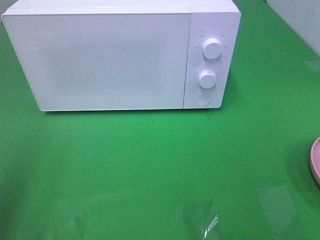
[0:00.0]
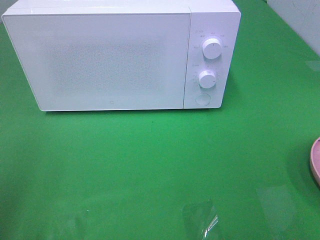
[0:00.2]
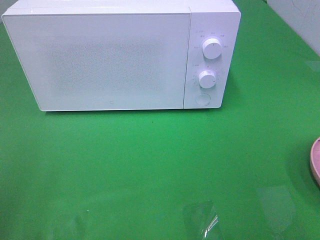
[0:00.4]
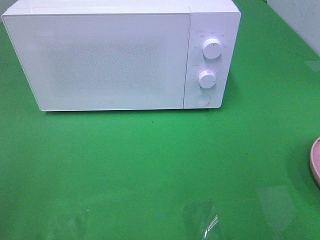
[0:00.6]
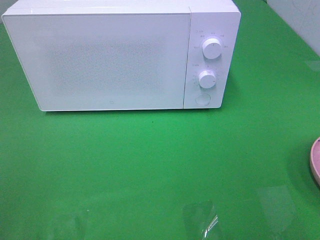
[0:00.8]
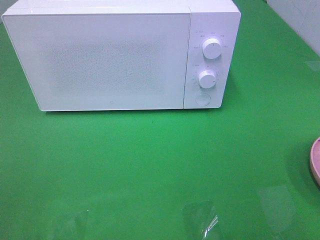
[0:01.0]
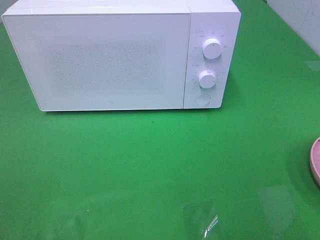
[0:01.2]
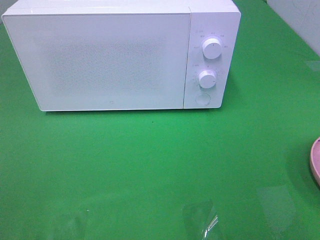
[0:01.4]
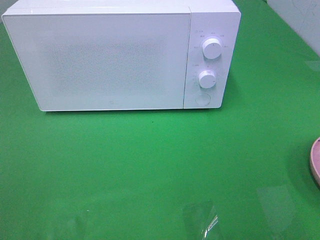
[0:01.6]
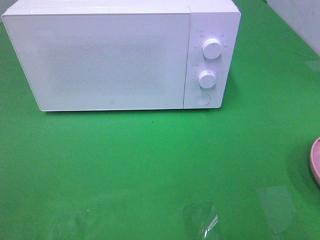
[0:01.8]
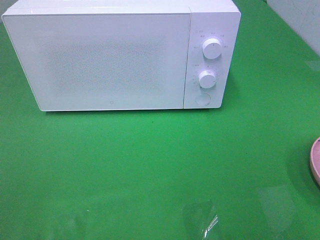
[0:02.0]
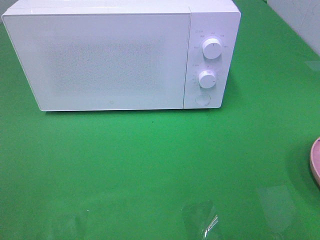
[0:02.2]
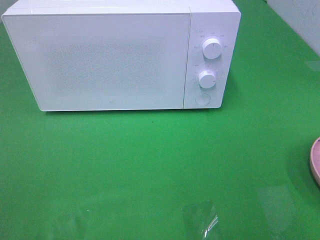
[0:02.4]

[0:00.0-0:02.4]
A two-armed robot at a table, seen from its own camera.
Task of the whole recording: Heat the burger.
0:01.2 to 0:02.4: The two grippers keep their place.

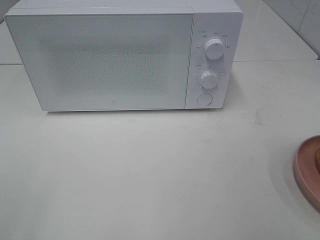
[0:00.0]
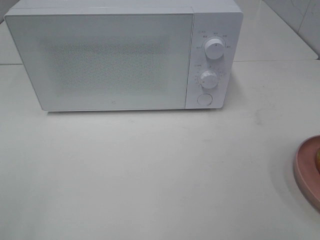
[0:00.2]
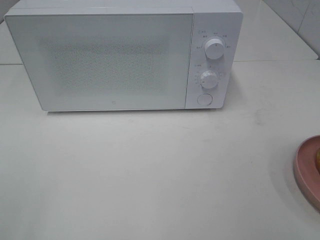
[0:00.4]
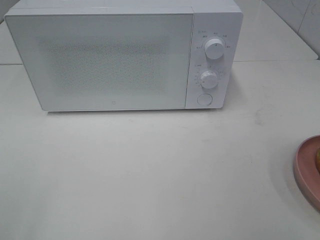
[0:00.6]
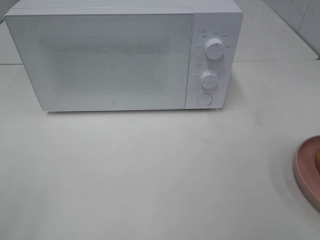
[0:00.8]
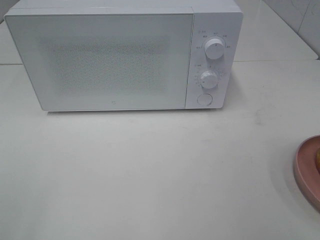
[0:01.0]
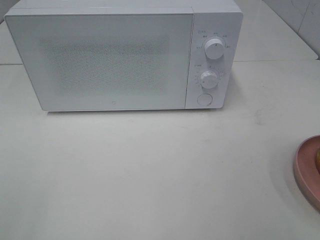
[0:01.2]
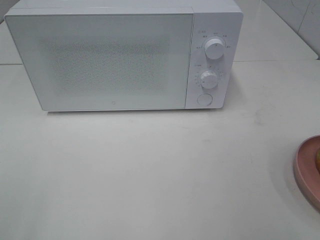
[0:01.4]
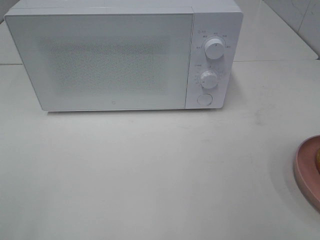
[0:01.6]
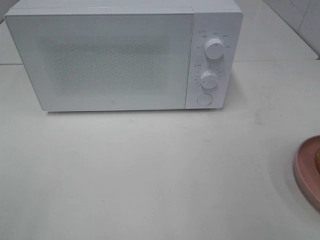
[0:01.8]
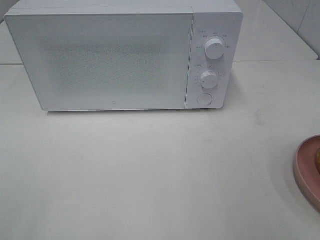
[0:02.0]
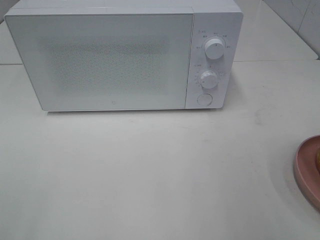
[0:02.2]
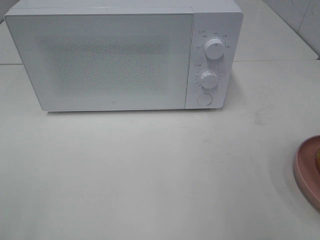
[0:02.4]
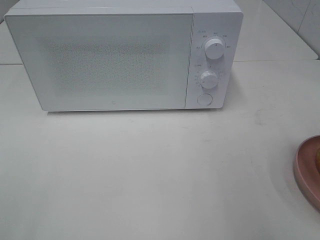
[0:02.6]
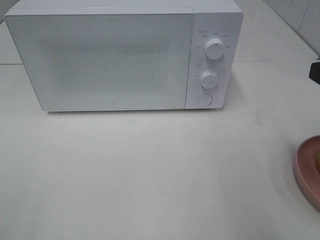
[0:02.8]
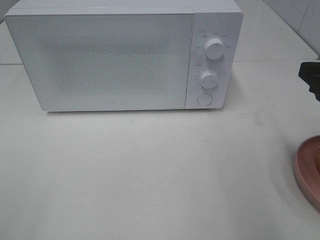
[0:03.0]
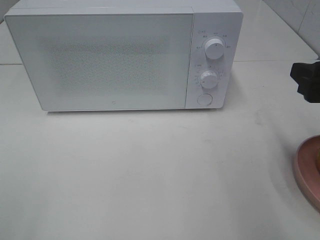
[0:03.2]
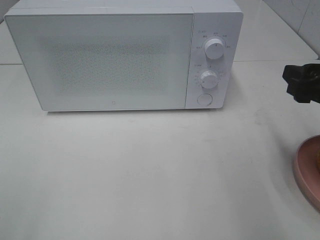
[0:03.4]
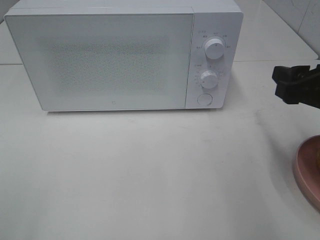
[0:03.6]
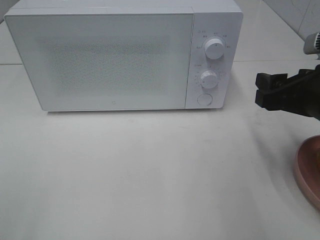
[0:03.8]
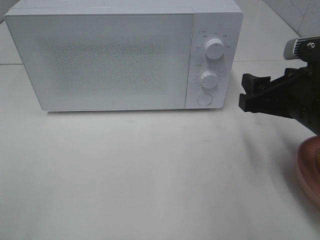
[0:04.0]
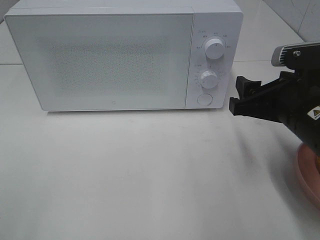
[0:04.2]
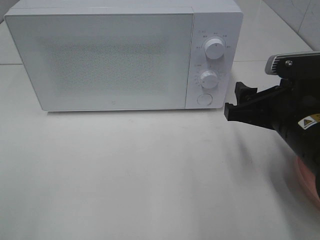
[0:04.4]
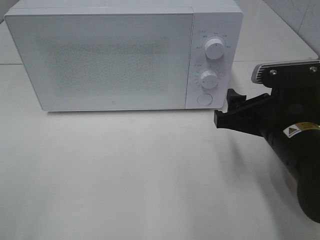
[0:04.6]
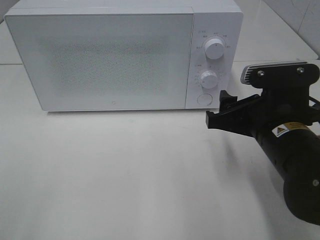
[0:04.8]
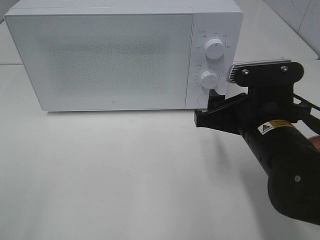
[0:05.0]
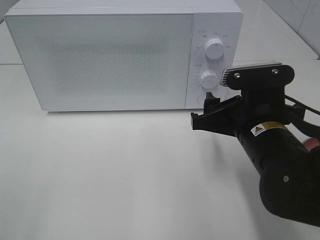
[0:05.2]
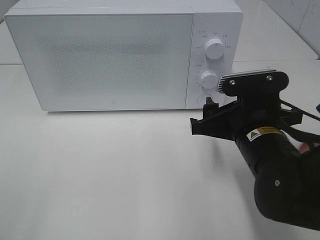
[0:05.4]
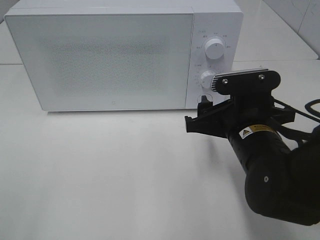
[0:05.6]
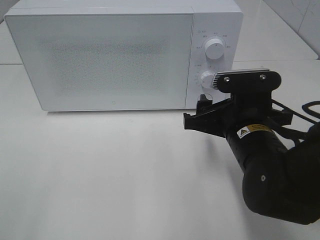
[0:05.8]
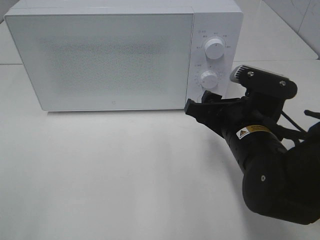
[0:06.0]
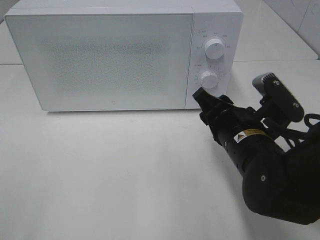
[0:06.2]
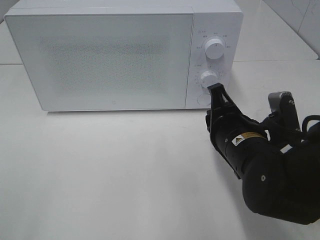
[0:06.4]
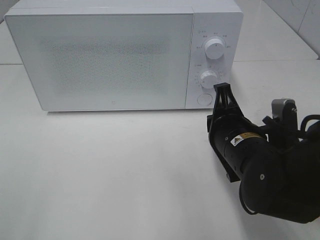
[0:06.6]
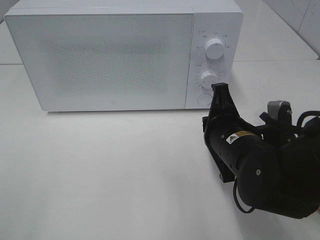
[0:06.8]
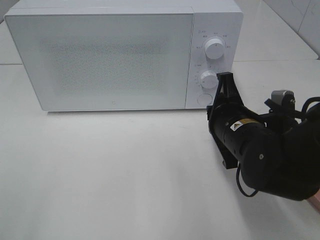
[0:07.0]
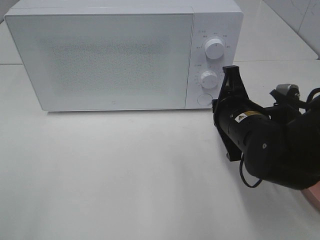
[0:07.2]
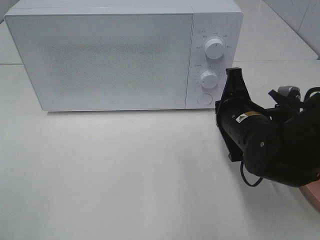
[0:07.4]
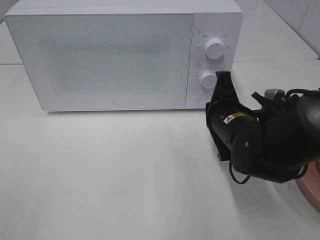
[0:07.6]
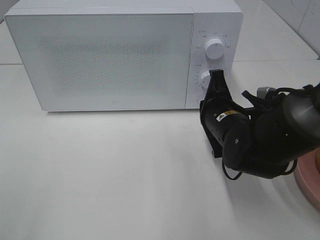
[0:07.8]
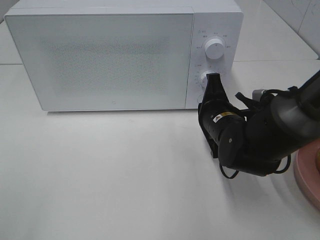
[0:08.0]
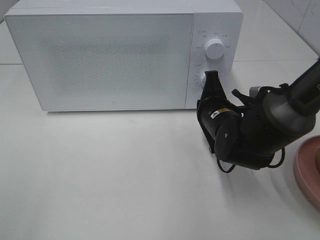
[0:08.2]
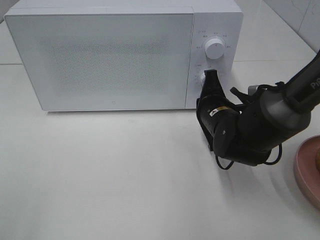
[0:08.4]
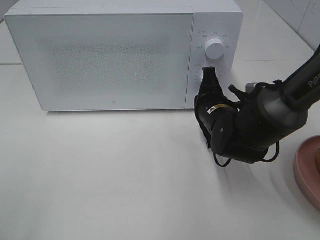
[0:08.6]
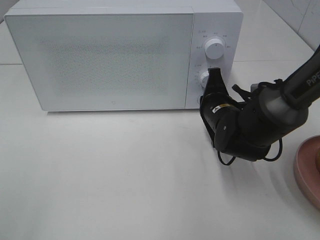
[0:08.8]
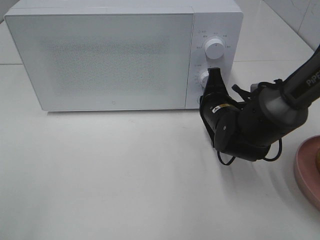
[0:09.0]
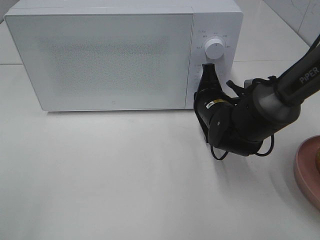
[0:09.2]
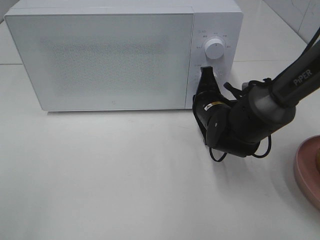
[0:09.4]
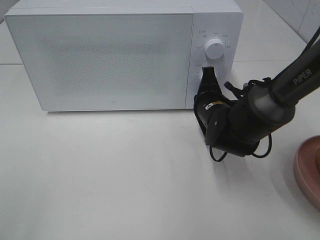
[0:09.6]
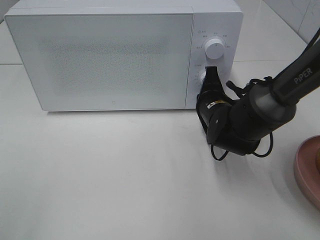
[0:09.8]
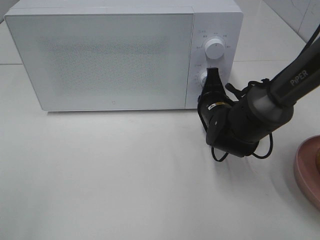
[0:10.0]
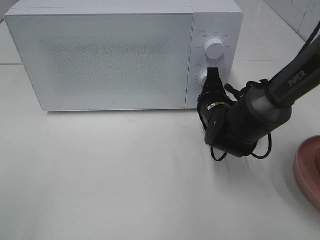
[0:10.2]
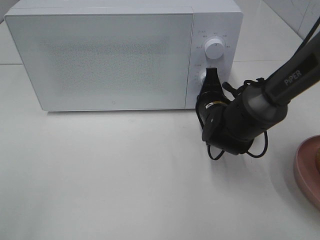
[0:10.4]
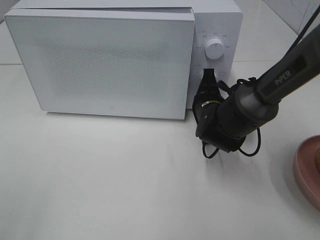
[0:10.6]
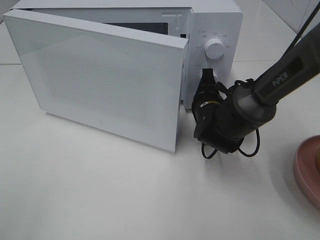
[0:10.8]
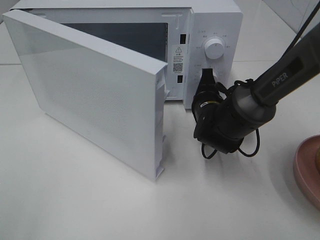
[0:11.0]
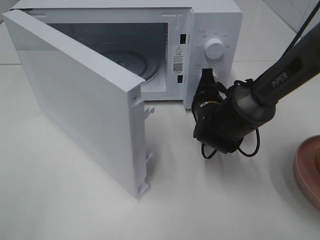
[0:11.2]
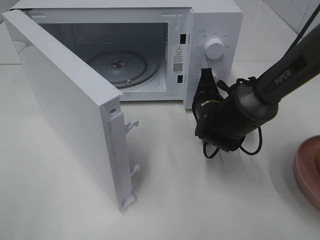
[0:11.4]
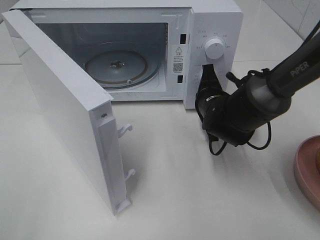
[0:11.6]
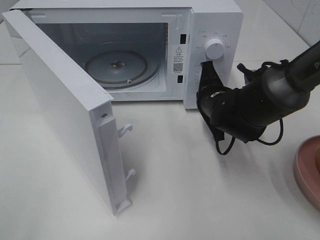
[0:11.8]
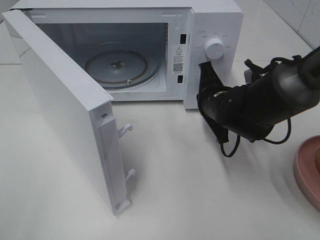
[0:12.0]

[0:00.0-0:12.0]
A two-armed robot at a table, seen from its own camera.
Task of the whole recording: Heat the burger.
Step, 0:00.0 to 0:11.8: Right hand: press the switch.
0:01.6 to 0:03.0: The right gripper heads forward, covering about 15 cm.
0:03.0 to 0:04.4: The right gripper goes some 10 cm to the left and downward.
0:04.4 to 0:06.0: The right gripper moves to the left, roughly 5 cm.
0:06.0 to 0:07.6: The right gripper changes place by roughly 5 cm, and closes up.
0:07.6 to 0:09.0: The right gripper goes about 5 cm forward.
0:09.0 to 0:10.4: The grippers make only small movements.

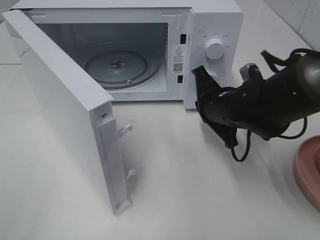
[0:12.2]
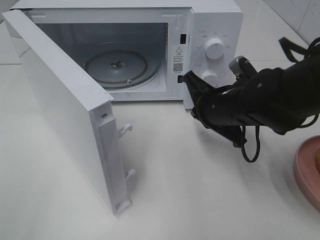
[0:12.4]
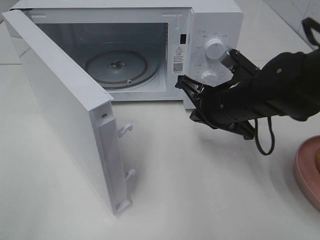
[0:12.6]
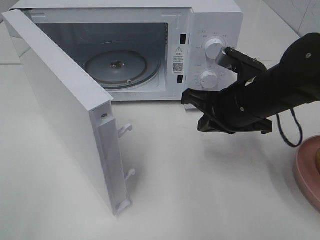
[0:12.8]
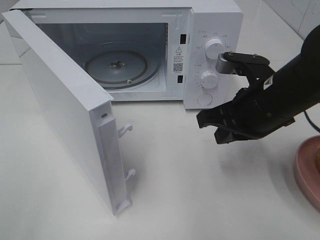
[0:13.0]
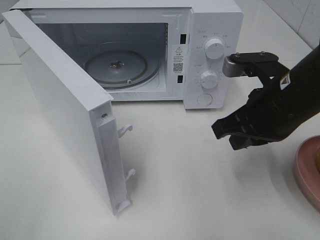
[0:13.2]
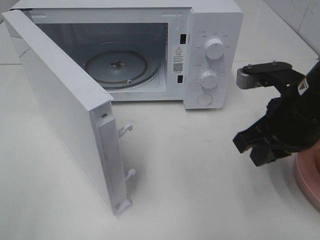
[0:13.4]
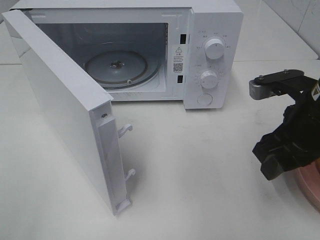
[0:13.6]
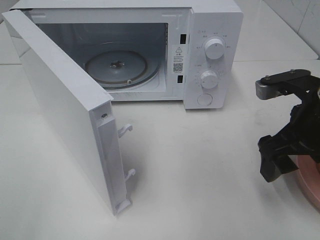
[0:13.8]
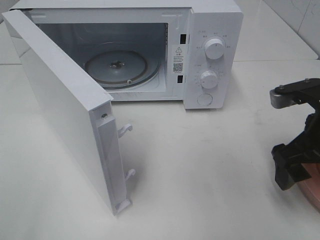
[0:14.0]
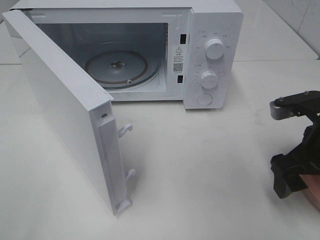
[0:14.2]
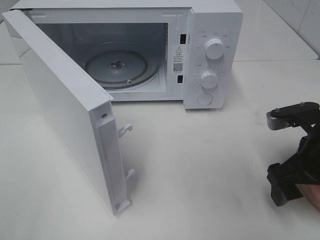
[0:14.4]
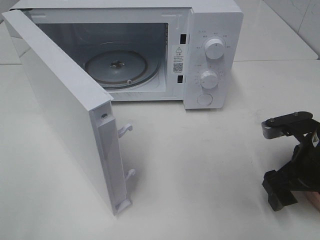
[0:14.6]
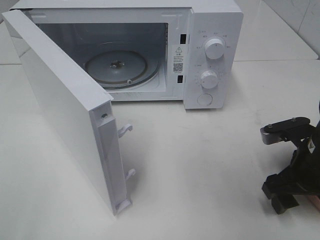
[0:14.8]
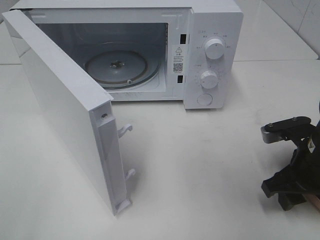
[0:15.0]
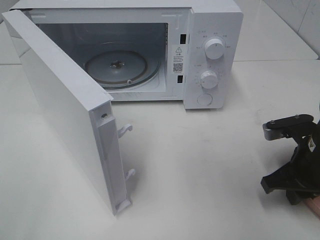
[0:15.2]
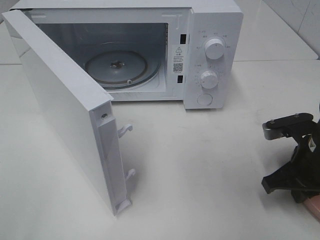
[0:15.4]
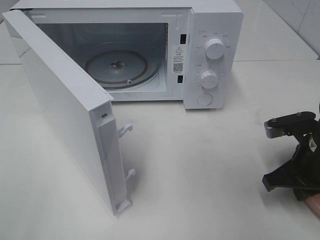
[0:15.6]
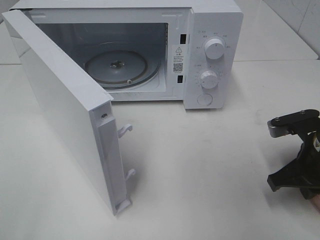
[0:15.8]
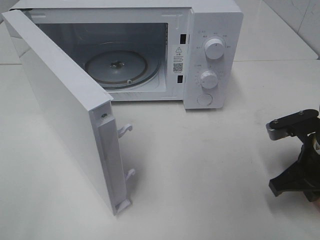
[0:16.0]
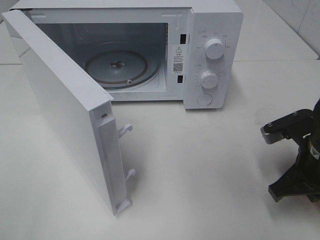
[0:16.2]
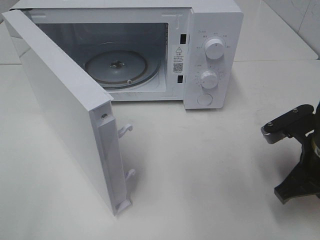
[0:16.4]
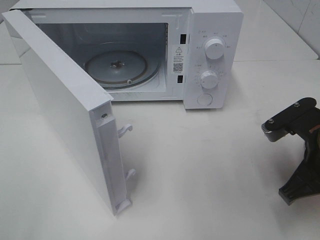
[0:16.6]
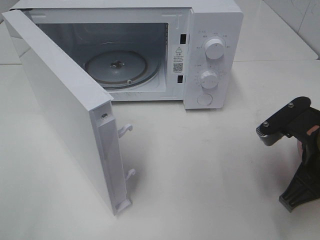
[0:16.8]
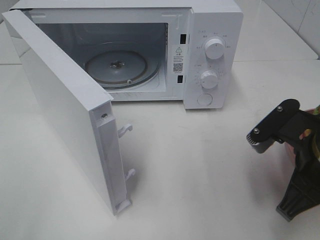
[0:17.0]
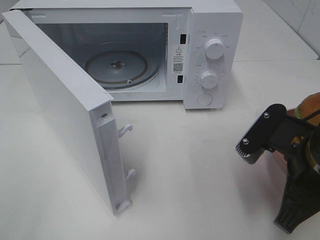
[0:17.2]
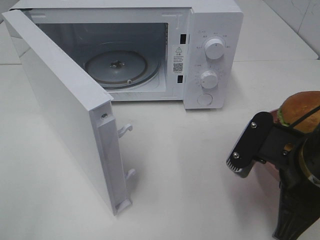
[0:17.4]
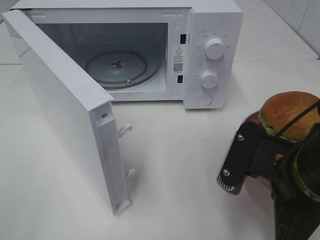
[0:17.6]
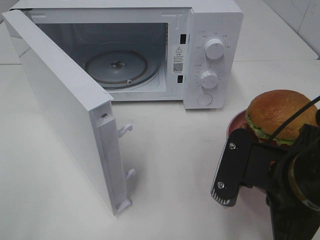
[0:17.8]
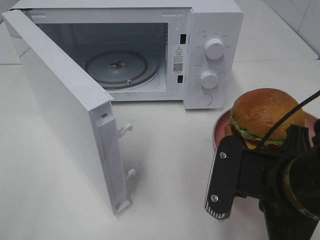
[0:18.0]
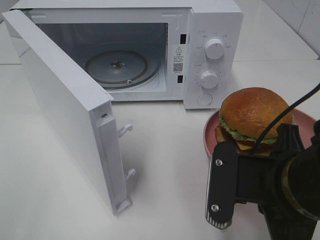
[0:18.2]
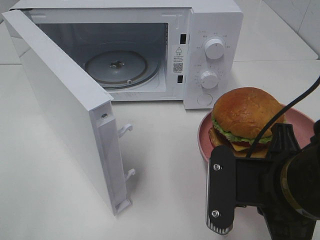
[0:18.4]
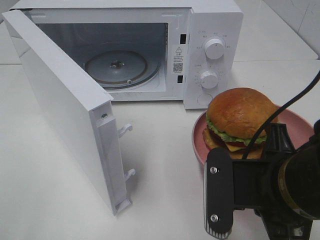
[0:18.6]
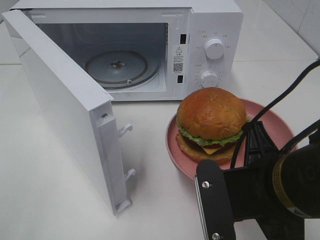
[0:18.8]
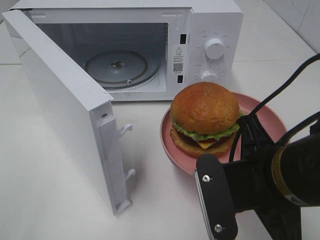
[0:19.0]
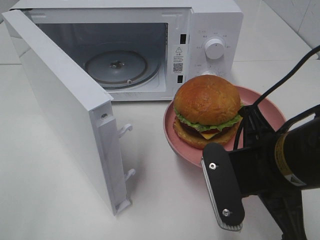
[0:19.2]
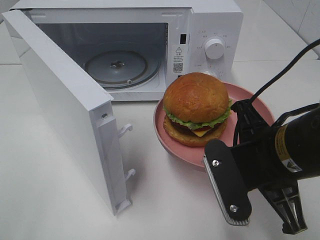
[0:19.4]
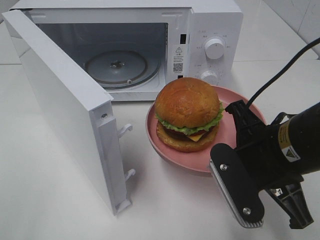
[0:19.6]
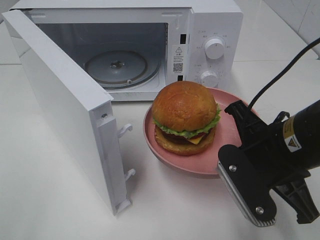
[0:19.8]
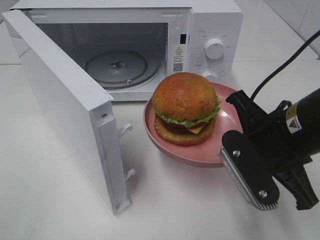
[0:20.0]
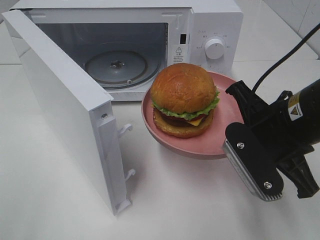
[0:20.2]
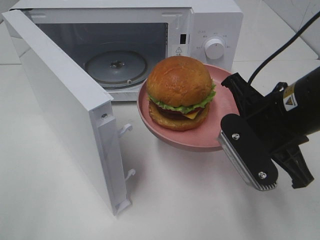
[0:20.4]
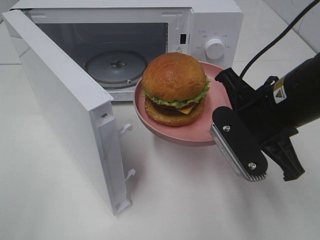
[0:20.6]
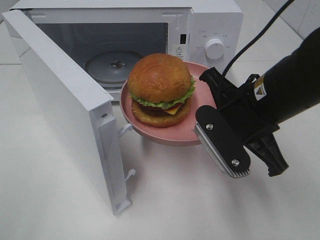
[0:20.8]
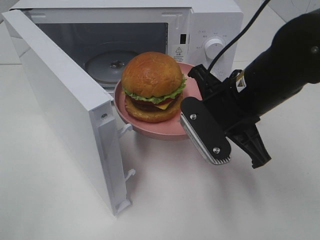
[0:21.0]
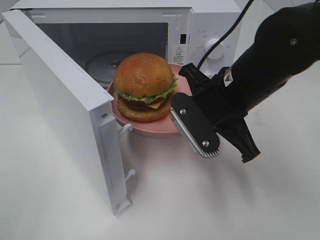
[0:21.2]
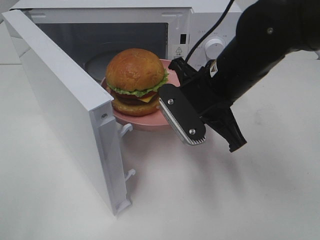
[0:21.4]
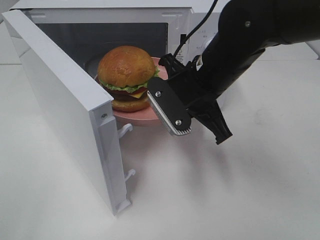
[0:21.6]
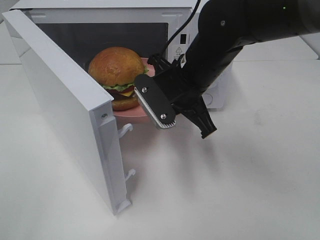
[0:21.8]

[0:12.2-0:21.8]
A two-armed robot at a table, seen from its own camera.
Task of the whole recording: Heat the burger.
Step, 0:12.2 to 0:15.4: Right hand: grab the plate with the hamburger.
0:12.2 to 0:13.8: The right gripper travels to the right, backward and upward by about 15 cm, and opens.
0:13.8 to 0:15.4: The right gripper is displaced downward by approximately 10 cm, and closes up.
0:15.4 to 0:17.0: The right gripper moves upward, backward and to the left, some 10 cm.
0:17.0 to 0:18.6: The right gripper shifts about 5 cm to the left.
0:18.6 to 0:20.2: The right gripper shifts some 10 cm forward.
0:20.2 to 0:21.8: The right gripper moves forward and to the left, some 15 cm.
